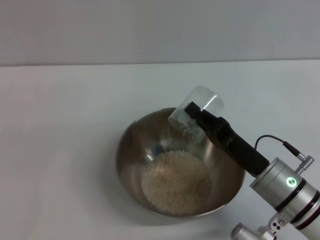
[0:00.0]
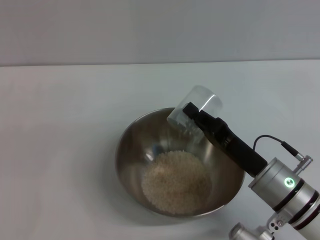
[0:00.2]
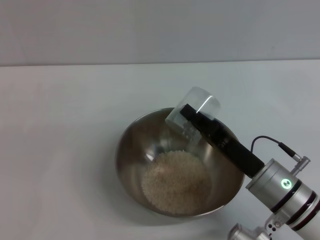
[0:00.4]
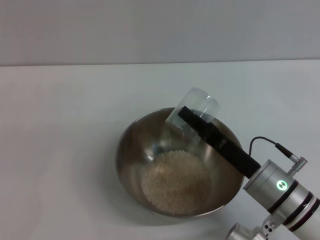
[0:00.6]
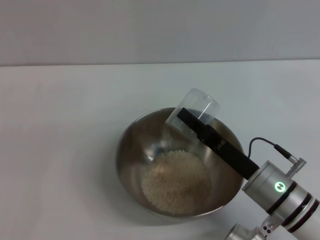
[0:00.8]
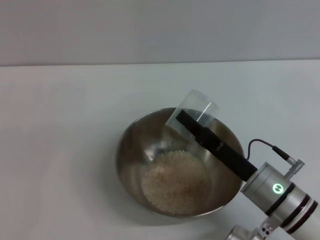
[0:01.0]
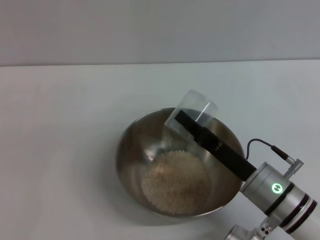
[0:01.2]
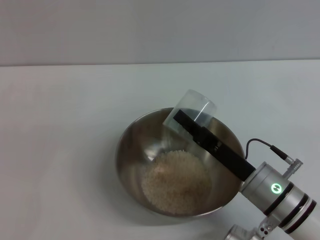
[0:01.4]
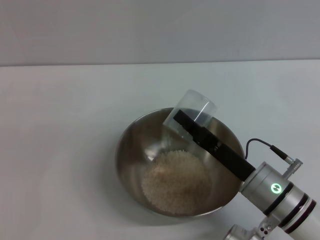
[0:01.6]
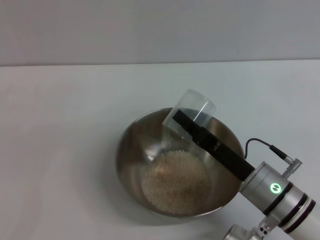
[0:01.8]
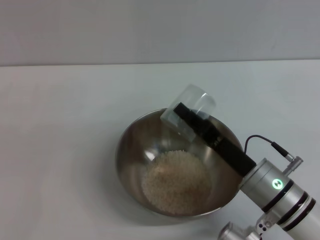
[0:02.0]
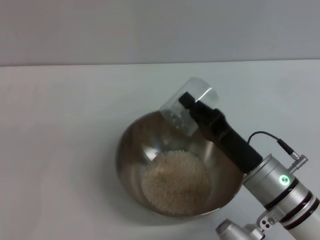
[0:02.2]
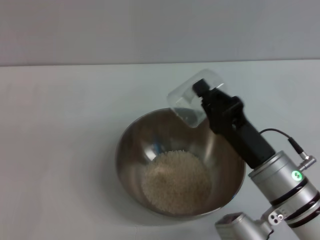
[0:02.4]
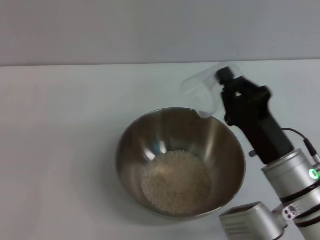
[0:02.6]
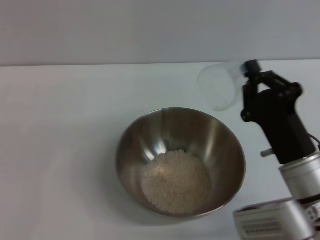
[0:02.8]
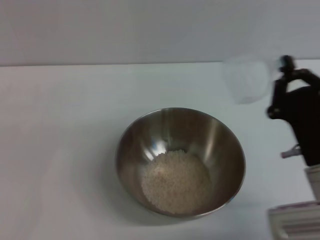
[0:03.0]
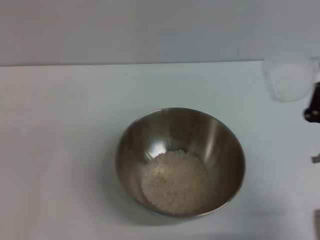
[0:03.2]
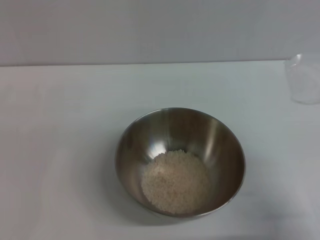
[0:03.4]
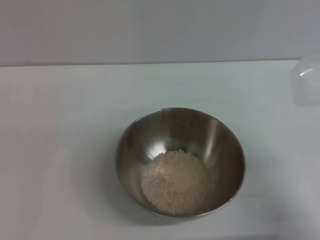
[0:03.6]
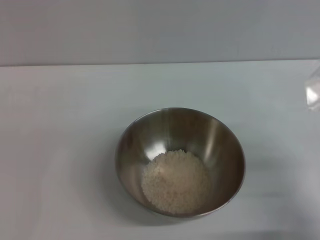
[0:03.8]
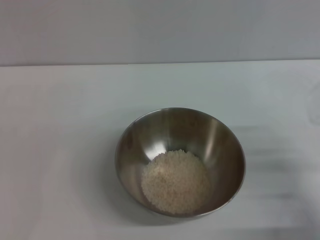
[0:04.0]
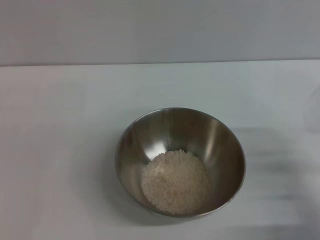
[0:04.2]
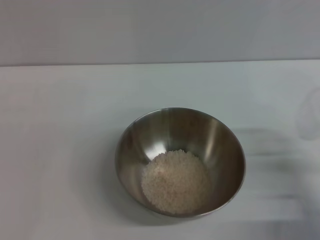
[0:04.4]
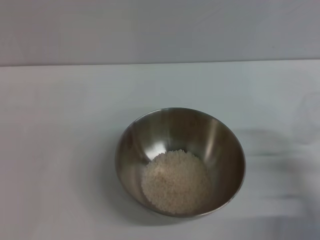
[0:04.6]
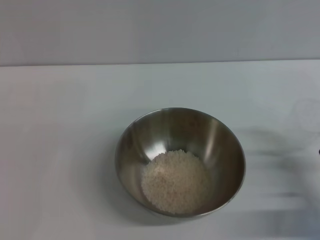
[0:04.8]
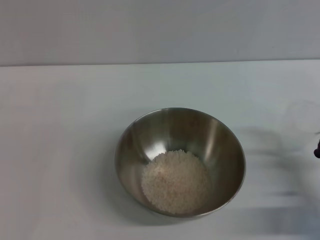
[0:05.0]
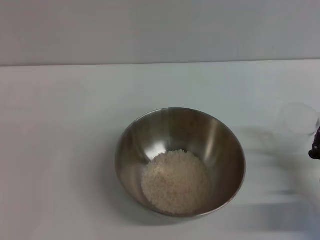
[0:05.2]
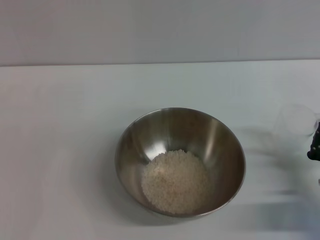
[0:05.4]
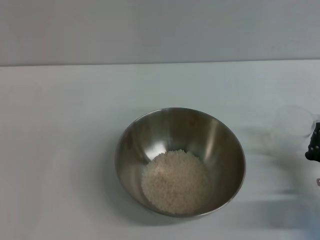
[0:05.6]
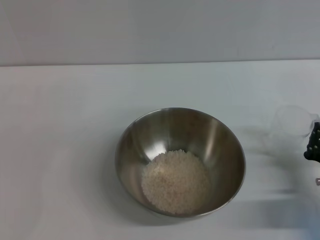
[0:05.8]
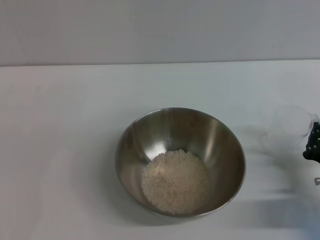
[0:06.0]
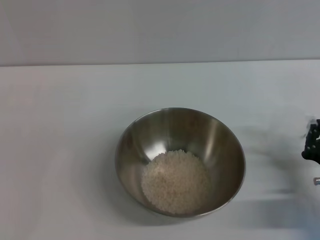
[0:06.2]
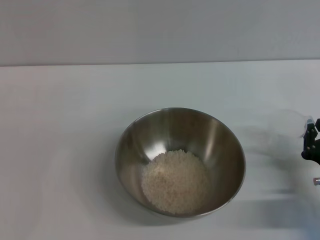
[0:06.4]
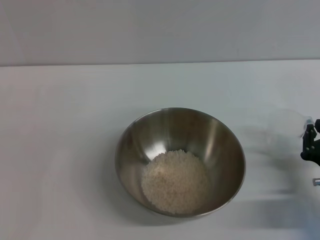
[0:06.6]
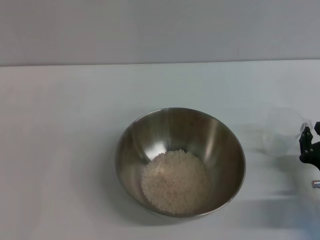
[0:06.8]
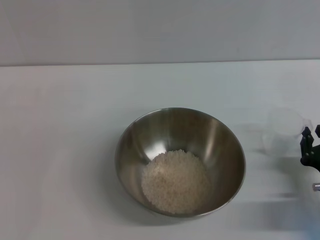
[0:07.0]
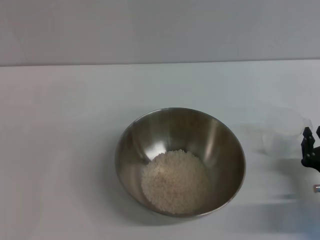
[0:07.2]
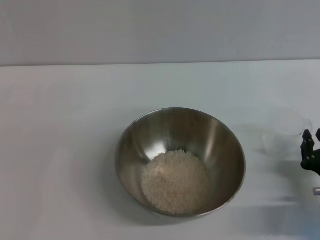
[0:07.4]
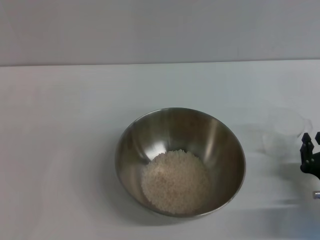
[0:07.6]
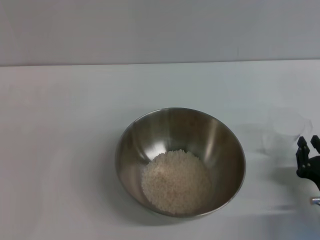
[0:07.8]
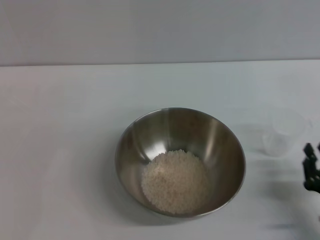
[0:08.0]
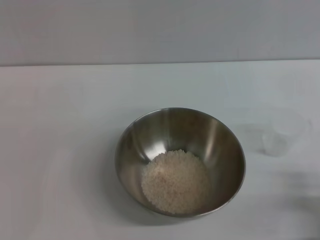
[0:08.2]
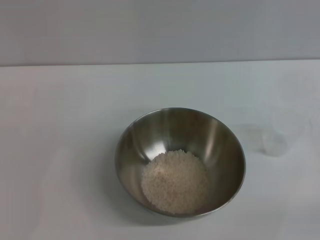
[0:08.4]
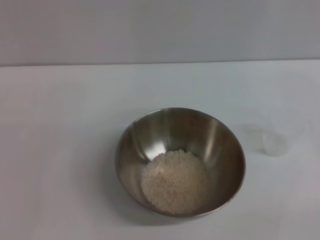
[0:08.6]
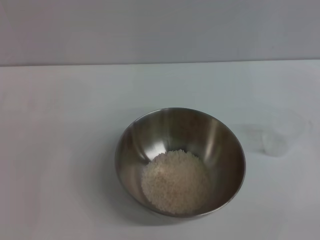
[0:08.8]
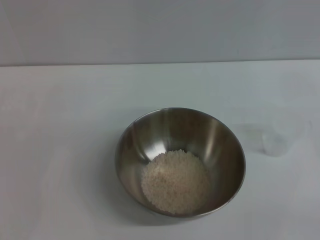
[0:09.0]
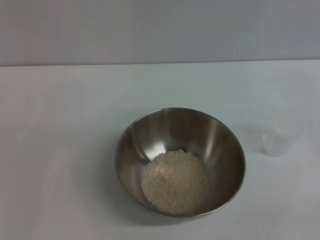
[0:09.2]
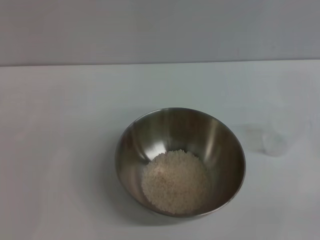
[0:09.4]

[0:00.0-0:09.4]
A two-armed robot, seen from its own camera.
Task of the whole recording: Place the bowl in the middle of the table with one hand and pour the rice from the grain cup into it with the other hand.
Step, 0:00.0 to 0:02.8: Pour the rice from the cup into the bowl with the right gripper.
Step, 0:03.0 to 0:07.8: Place the cup on the table with the right gripper.
0:00.0 to 0:01.6: The grippers stay close to where they were, moving slightly.
0:01.6 to 0:03.2: The right gripper travels to the right by roughly 10 cm.
0:03.2 to 0:04.8: The right gripper is displaced downward and to the right by about 10 cm.
0:04.8 to 0:07.8: The grippers stay close to where they were, moving slightly.
0:07.8 to 0:09.4: The right gripper moves to the right and backward, some 15 cm, and opens.

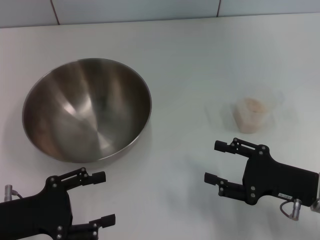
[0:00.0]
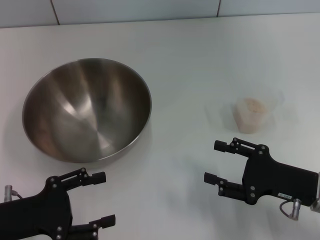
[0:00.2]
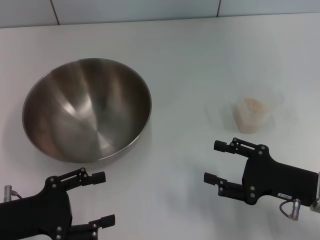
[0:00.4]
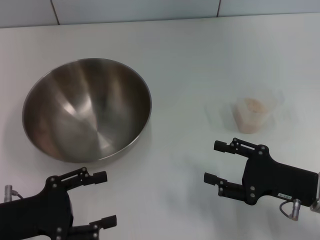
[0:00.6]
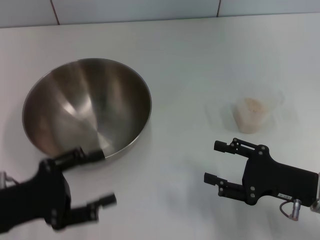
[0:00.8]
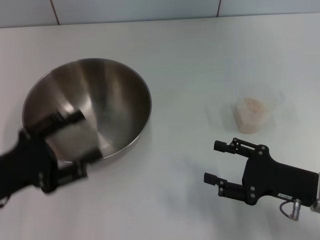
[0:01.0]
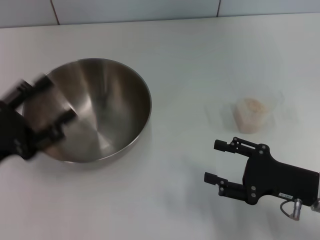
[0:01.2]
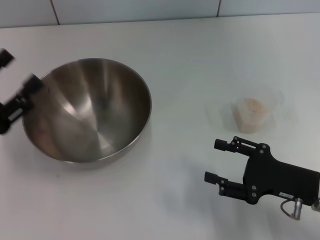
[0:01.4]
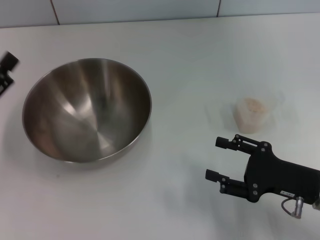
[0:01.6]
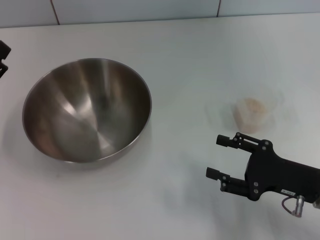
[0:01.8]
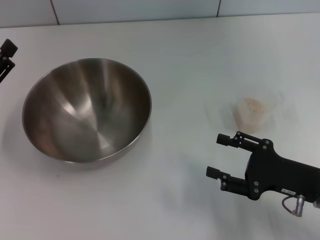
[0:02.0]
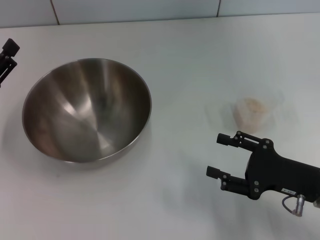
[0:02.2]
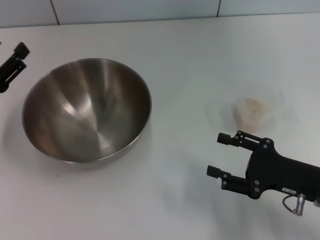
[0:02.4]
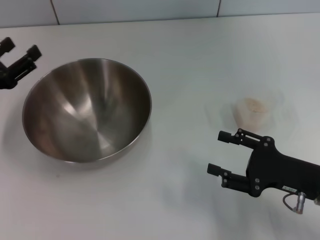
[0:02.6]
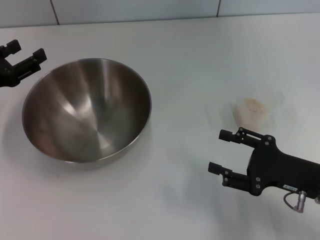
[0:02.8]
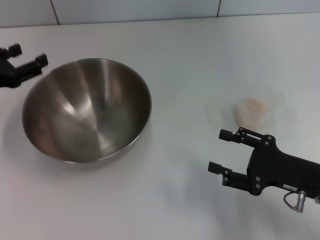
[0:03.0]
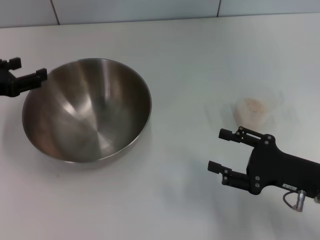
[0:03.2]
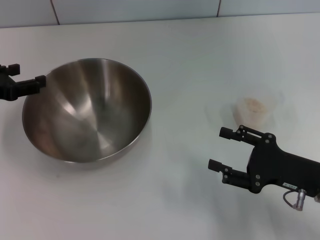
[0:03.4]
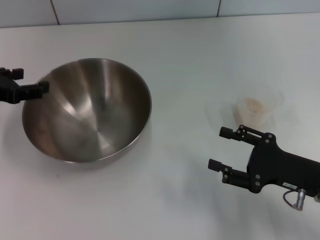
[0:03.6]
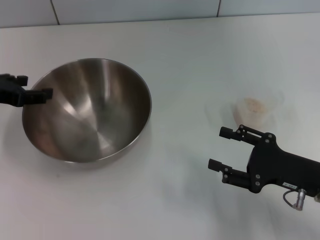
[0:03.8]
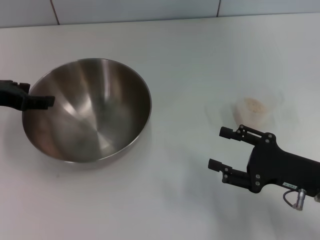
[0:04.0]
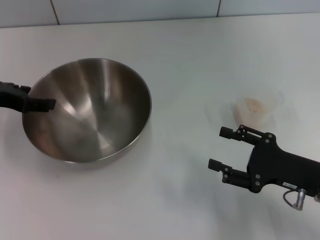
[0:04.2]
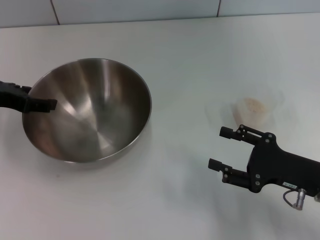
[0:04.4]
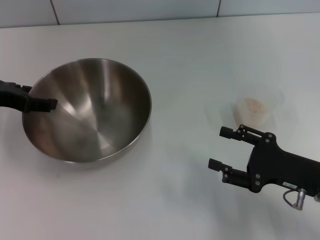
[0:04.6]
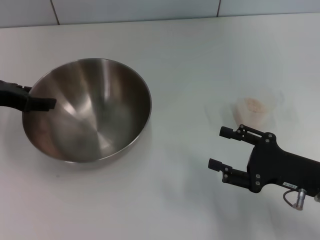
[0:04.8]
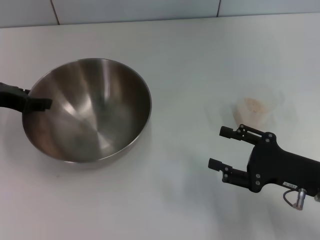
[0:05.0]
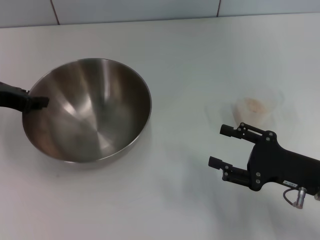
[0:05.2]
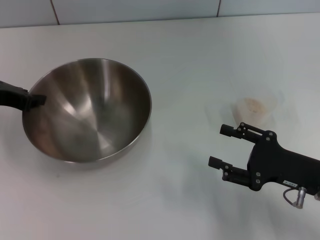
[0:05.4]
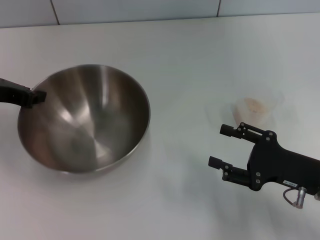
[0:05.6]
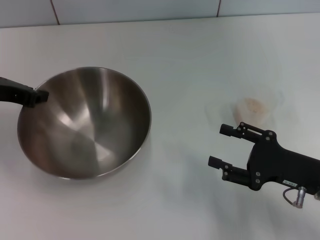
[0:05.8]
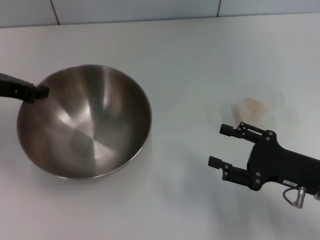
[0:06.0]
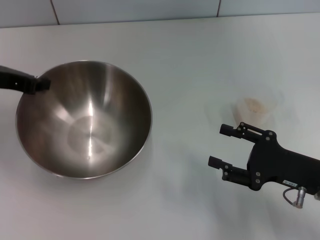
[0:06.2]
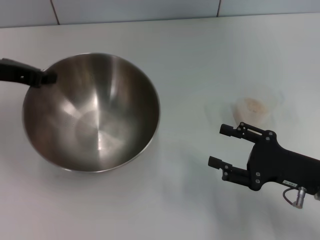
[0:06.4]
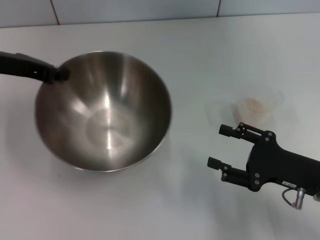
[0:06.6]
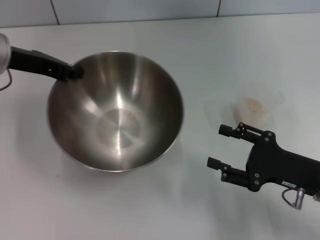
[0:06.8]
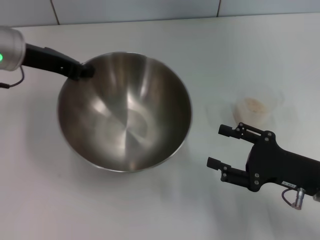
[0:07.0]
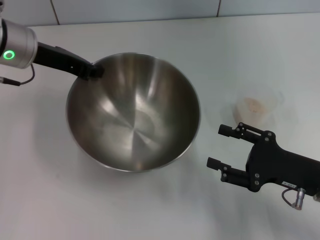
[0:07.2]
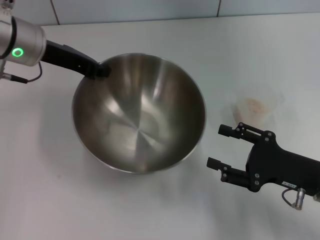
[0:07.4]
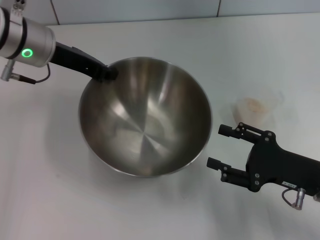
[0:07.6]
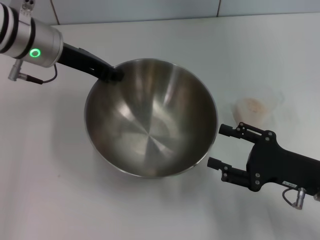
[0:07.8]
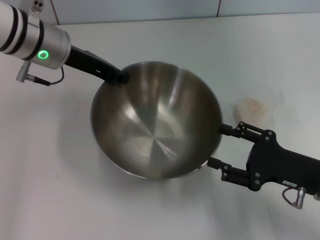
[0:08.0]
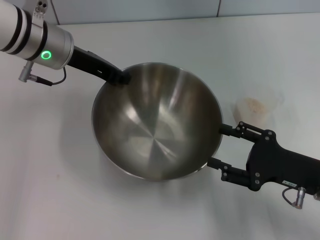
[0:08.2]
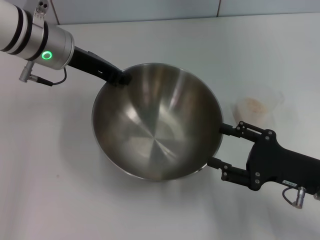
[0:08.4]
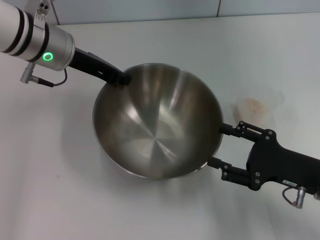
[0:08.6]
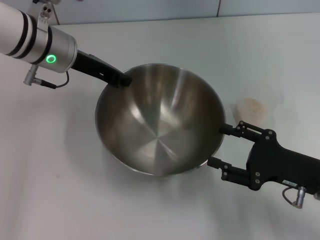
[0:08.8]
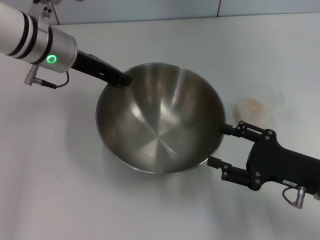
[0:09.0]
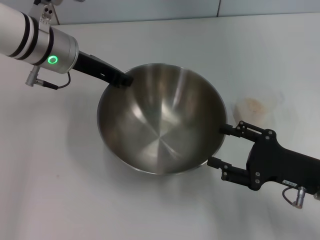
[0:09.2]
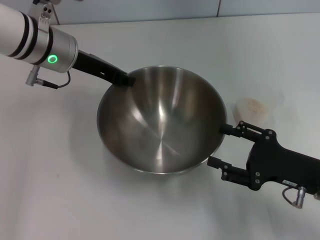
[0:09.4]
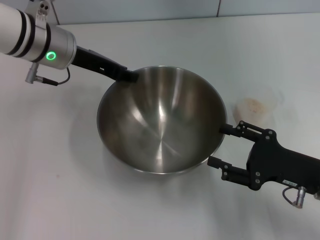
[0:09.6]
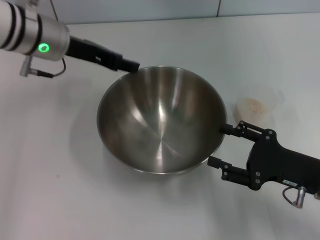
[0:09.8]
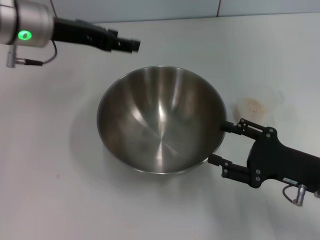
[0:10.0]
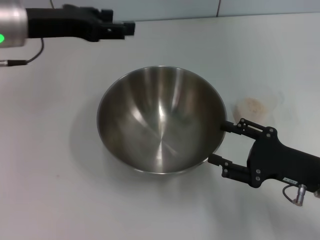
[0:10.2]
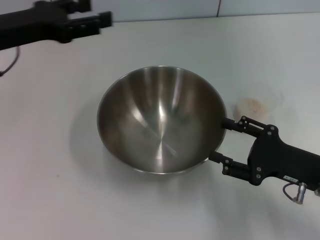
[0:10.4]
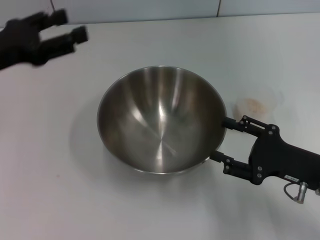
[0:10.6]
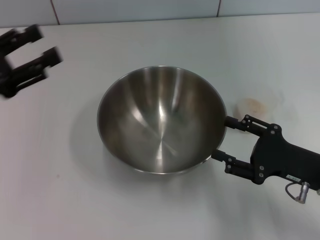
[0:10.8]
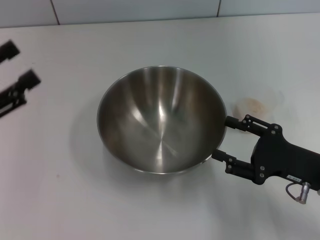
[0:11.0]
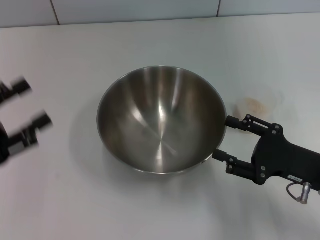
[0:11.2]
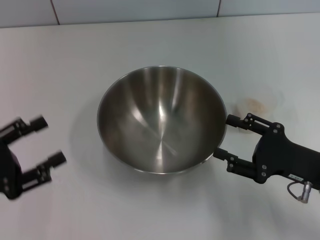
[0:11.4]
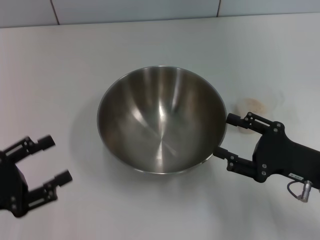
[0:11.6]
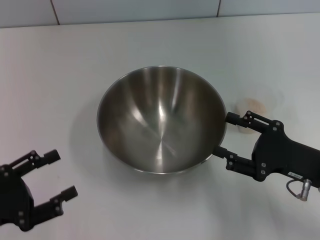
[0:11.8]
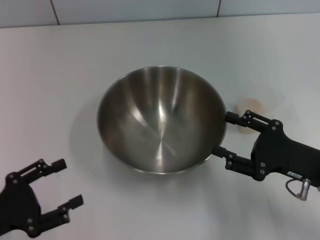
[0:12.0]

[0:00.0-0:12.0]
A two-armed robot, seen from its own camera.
Task of the whole recording: Place the bowl in the middle of the table with one hand and pour the rice from the grain cup into it with the other hand.
Step, 0:00.0 to 0:06.4: Pick up the bowl with the left gripper.
Step, 0:06.6 to 0:10.0: Place the bowl in the center of view with the left gripper.
0:00.0 to 0:01.6: The left gripper ends up approximately 5 cm from where it was.
0:01.6 to 0:03.0: The left gripper moves forward, about 10 cm.
0:04.4 to 0:06.0: The left gripper closes up.
0:06.0 to 0:07.6: The left gripper goes some 10 cm to the right.
0:07.6 to 0:09.0: The grippers make only small movements.
0:09.0 to 0:10.4: The left gripper goes some 5 cm to the left, and opens.
0:10.4 to 0:12.0: The left gripper heads backward and downward, covering about 25 cm.

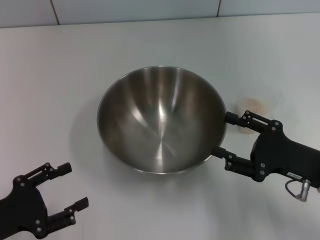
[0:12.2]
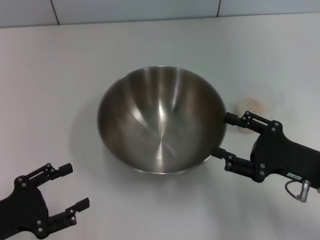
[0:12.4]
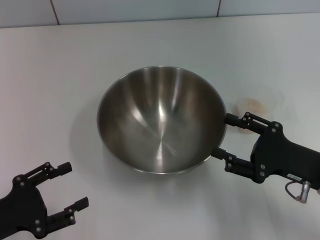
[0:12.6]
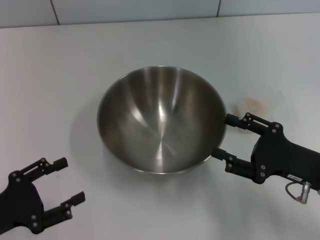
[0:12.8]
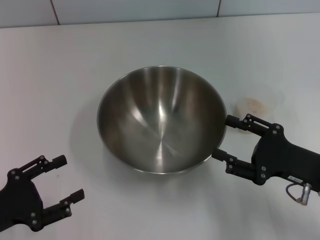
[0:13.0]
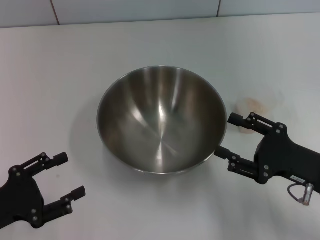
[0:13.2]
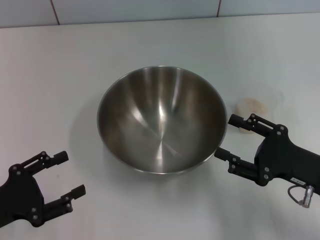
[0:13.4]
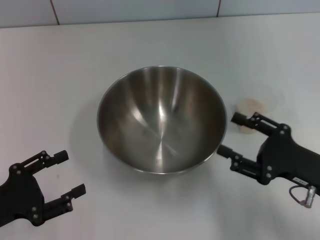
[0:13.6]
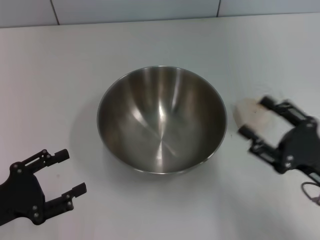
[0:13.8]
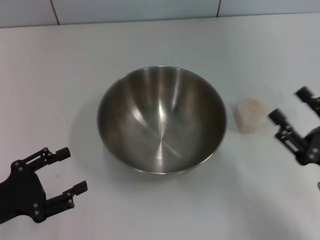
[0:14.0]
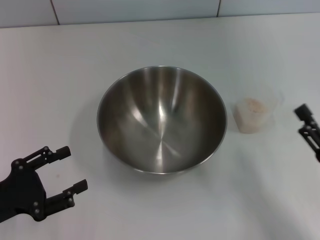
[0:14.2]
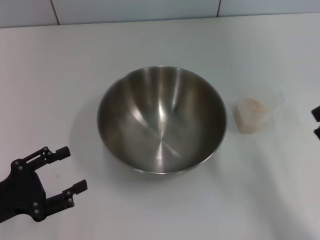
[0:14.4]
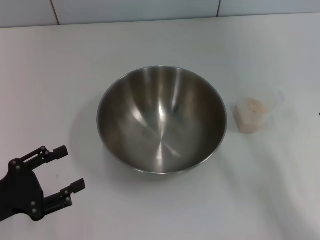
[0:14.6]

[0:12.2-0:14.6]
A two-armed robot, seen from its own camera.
Task of the whole recording: Place the bowl in the middle of the table with one hand and pour the rice from the grain cup into it with the other hand.
0:12.2 to 0:13.4: Neither gripper changes place.
0:13.4 to 0:14.6: The right gripper shifts approximately 5 cm backward.
